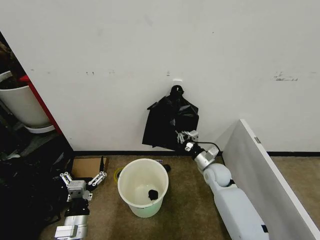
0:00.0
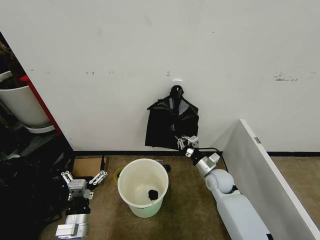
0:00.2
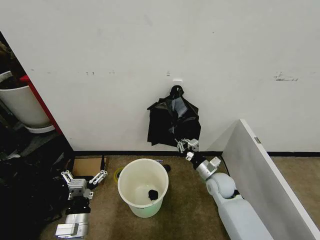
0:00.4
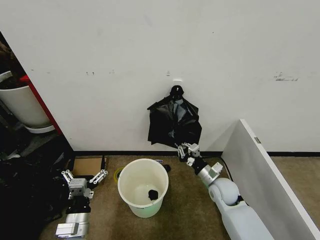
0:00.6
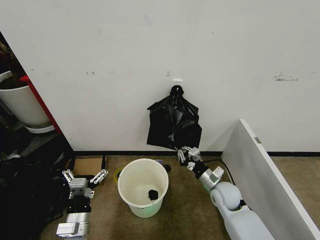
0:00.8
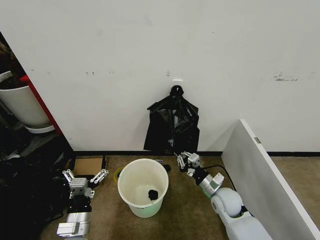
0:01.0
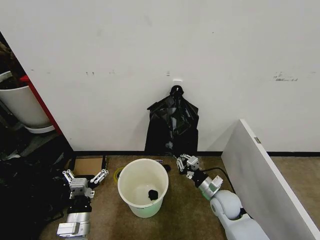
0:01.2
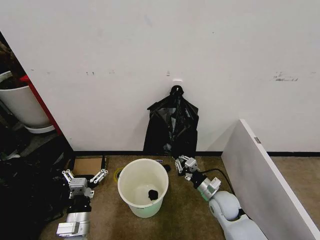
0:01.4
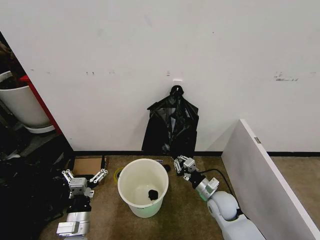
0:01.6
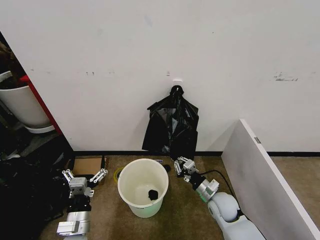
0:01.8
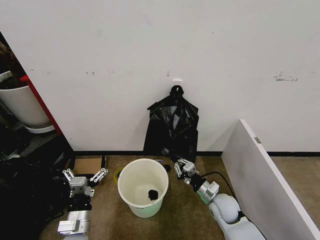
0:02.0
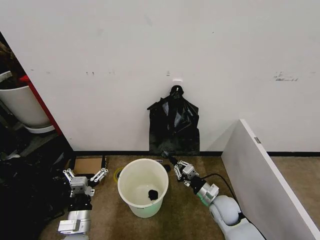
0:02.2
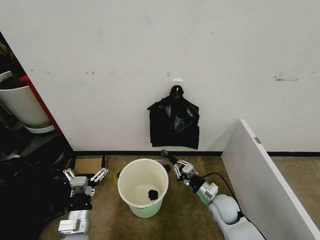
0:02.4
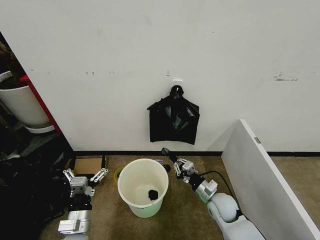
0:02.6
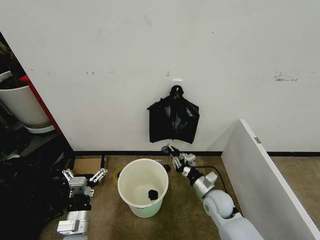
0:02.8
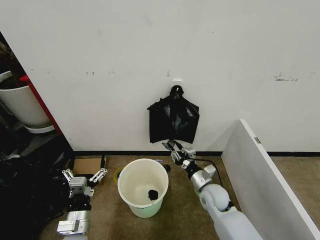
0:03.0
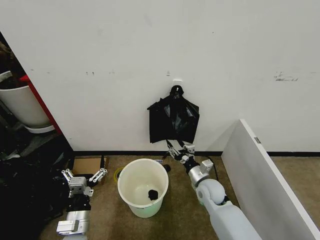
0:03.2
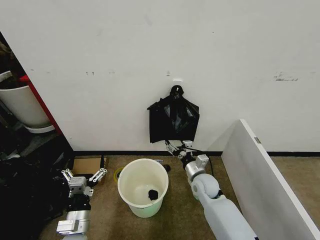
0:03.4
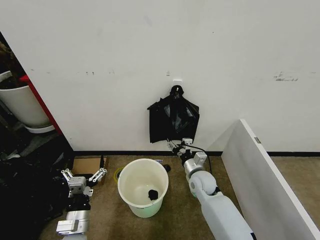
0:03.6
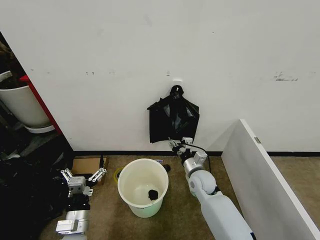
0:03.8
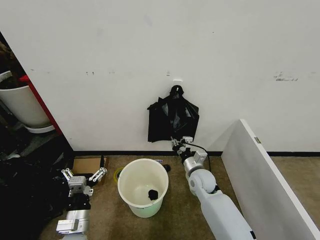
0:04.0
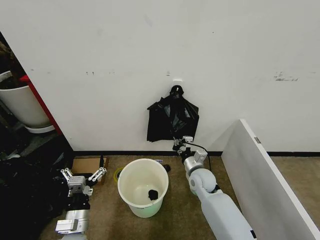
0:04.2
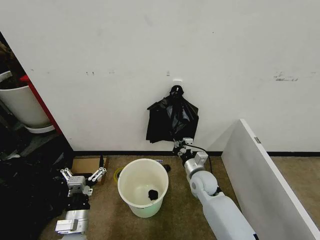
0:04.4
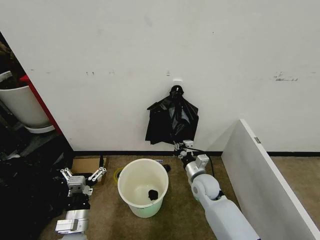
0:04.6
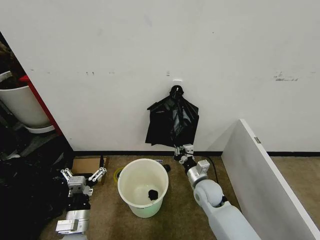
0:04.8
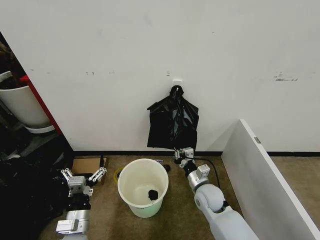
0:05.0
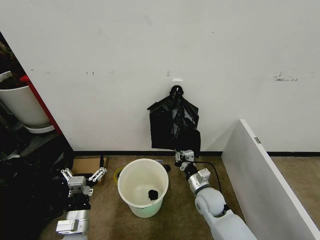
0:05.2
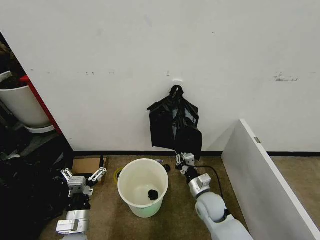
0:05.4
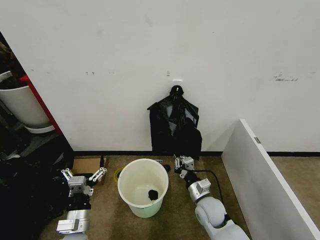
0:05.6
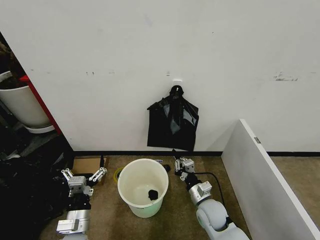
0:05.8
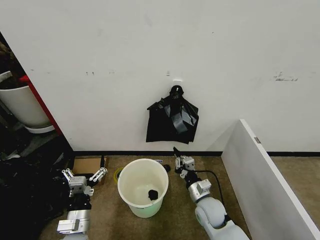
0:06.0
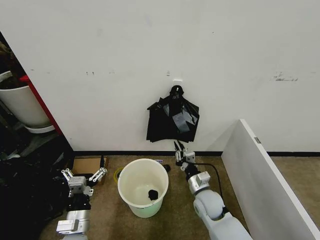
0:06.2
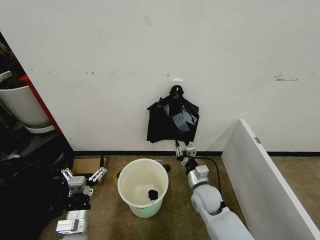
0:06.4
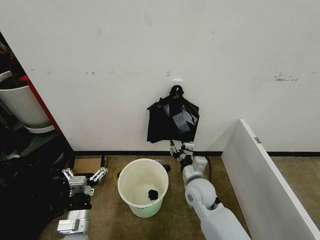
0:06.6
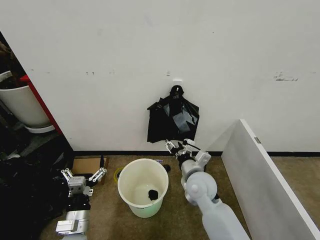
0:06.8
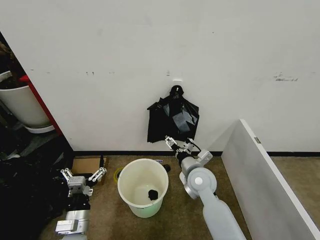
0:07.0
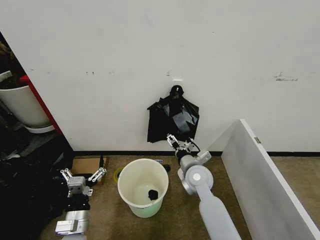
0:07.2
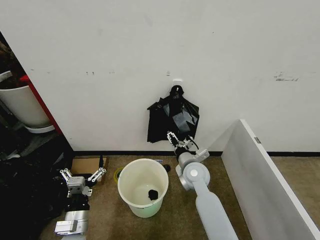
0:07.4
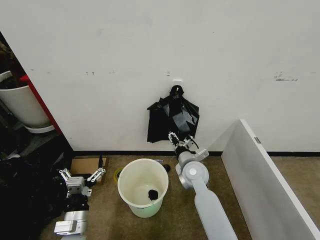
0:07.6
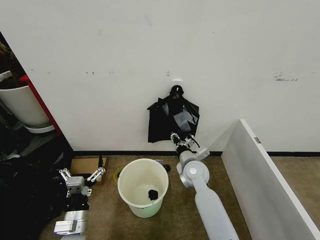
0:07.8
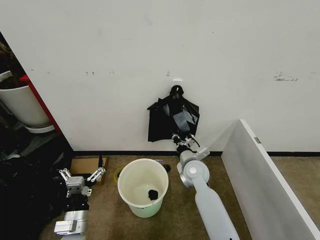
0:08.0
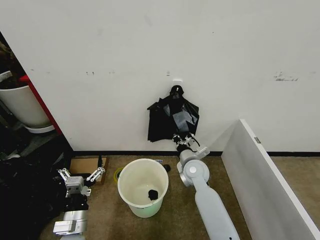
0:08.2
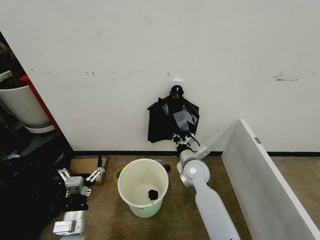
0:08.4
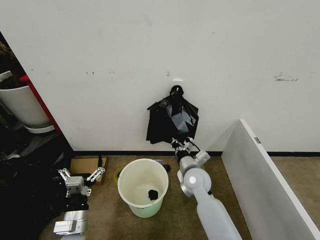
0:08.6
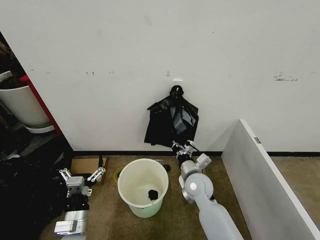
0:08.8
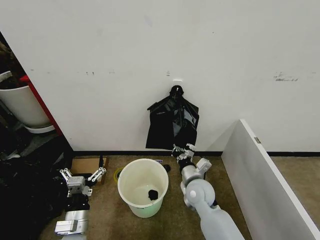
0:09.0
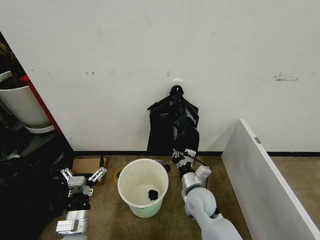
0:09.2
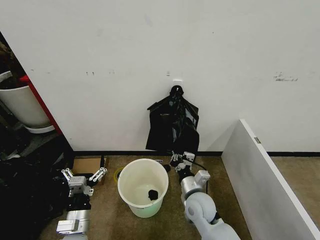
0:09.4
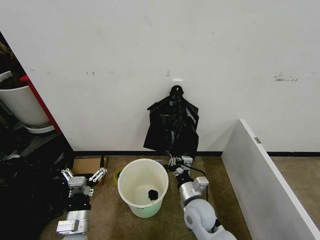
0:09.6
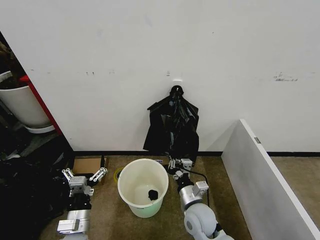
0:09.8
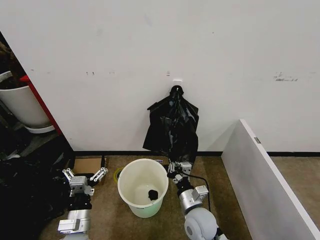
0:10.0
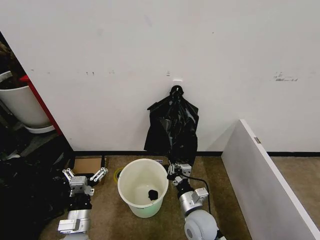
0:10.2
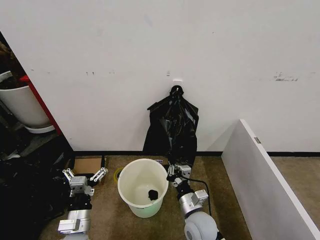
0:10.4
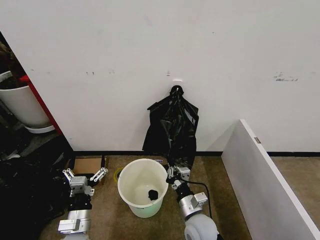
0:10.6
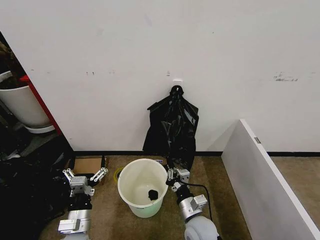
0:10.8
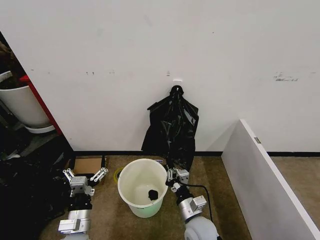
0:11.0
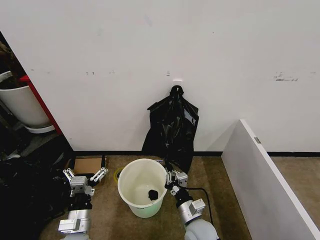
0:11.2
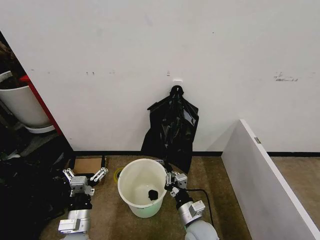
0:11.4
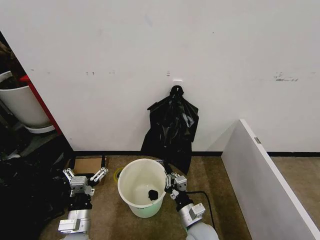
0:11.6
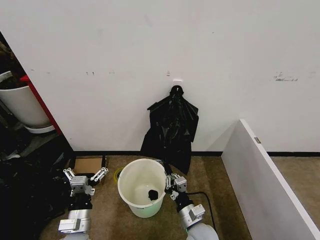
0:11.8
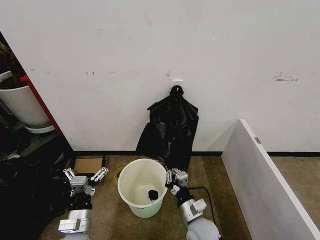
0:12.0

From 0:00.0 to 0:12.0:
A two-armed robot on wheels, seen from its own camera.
Task of the whole recording: Place the garbage bag over the trash bin.
From 0:00.0 to 0:01.6: The right gripper goes about 10 cm backward.
From 0:01.6 to 0:03.0: The right gripper opens its fingers.
From 0:03.0 to 0:04.4: The right gripper moves some 5 cm, and closes its fingers.
From 0:04.4 to 0:06.0: The right gripper goes roughly 10 cm backward.
From 0:06.0 to 0:07.6: The right gripper is displaced forward and upward by about 15 cm, and opens up.
From 0:07.6 to 0:09.0: The right gripper is displaced backward by some 5 cm, and closes.
From 0:09.0 to 0:10.4: The right gripper is displaced backward by roughly 10 cm.
From 0:10.4 to 0:12.0: There are only small adjustments of the grippers.

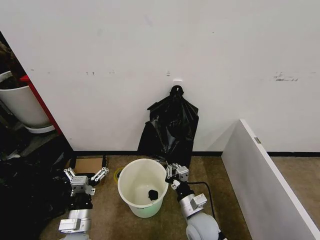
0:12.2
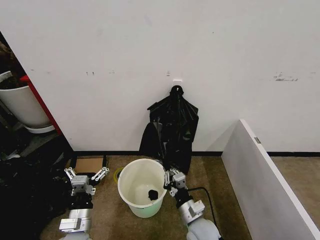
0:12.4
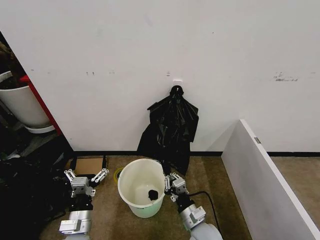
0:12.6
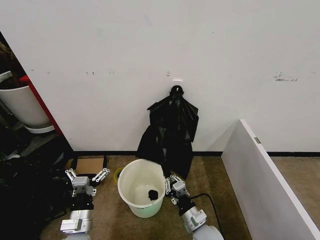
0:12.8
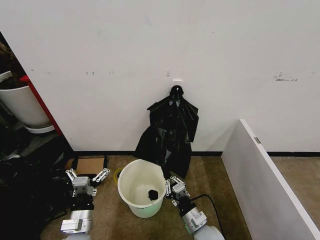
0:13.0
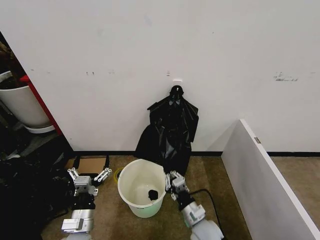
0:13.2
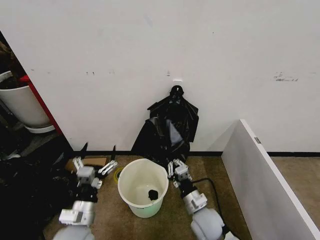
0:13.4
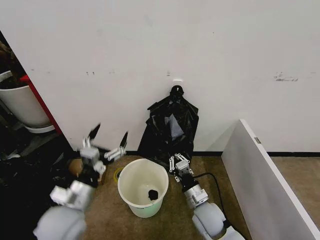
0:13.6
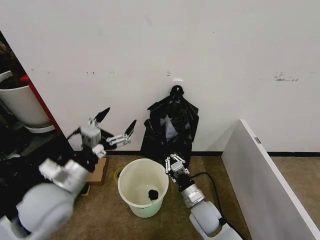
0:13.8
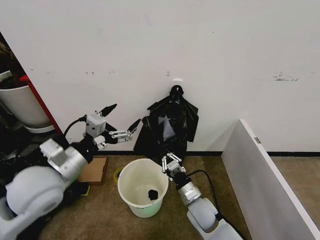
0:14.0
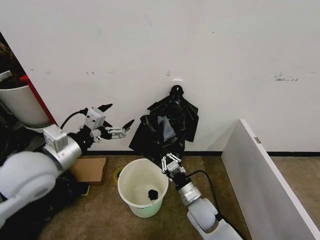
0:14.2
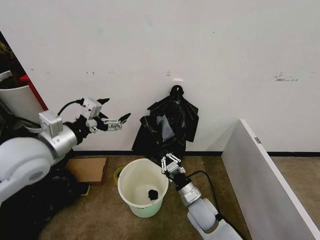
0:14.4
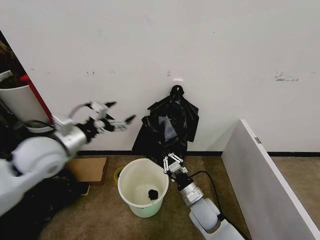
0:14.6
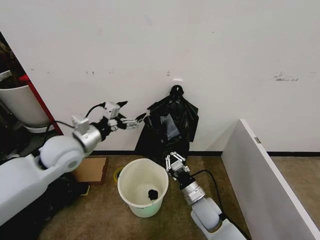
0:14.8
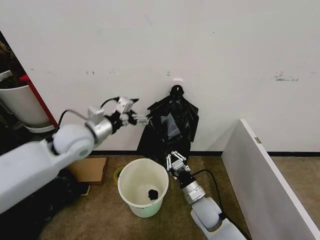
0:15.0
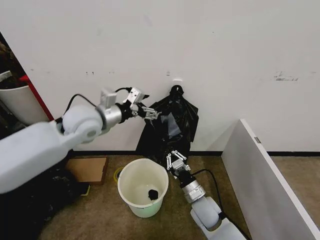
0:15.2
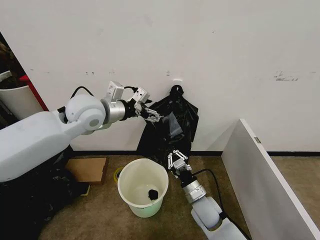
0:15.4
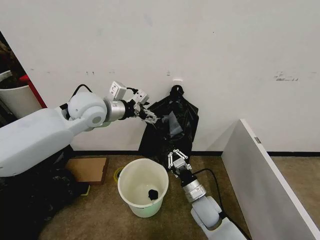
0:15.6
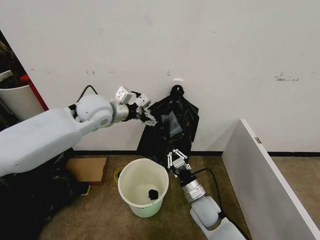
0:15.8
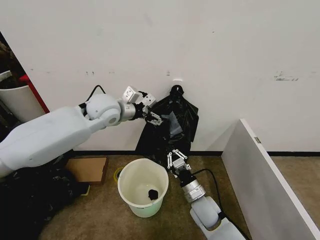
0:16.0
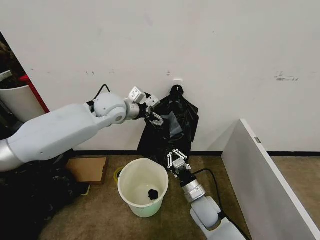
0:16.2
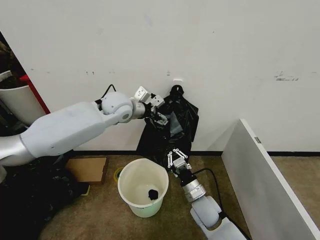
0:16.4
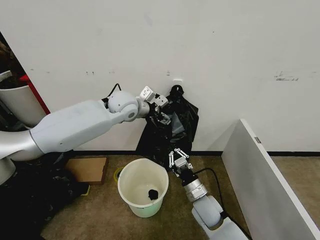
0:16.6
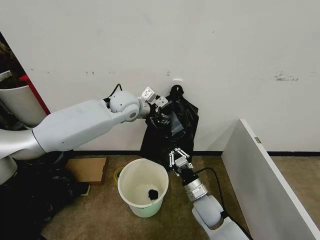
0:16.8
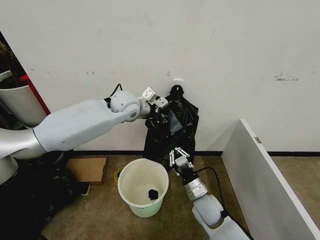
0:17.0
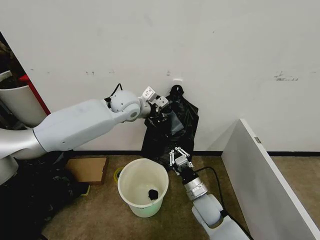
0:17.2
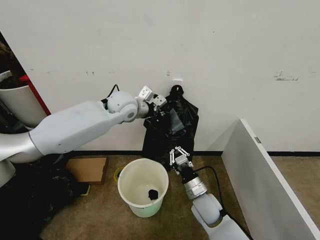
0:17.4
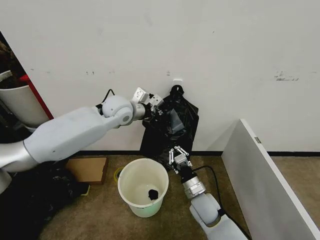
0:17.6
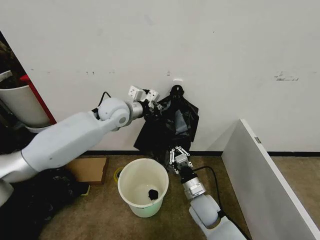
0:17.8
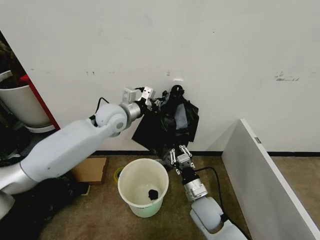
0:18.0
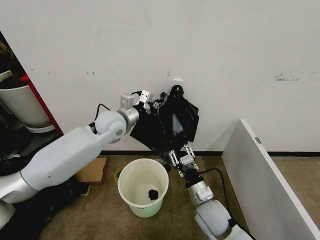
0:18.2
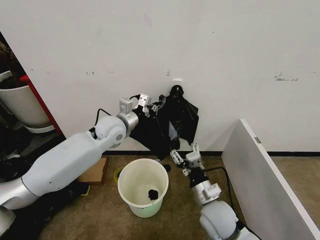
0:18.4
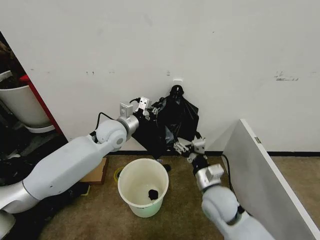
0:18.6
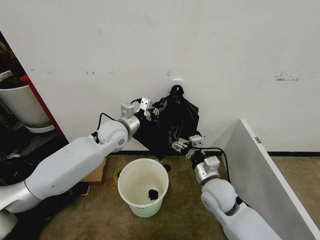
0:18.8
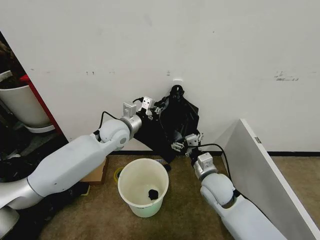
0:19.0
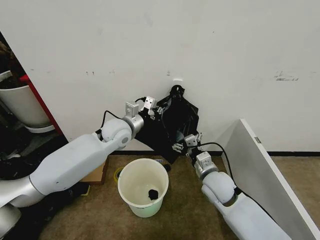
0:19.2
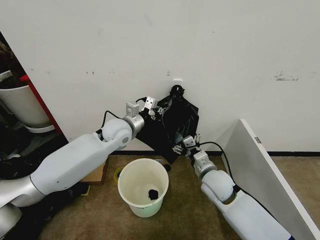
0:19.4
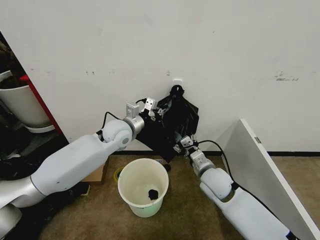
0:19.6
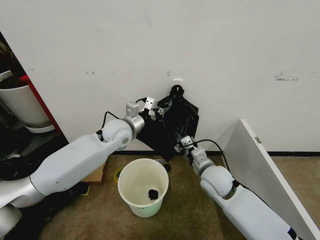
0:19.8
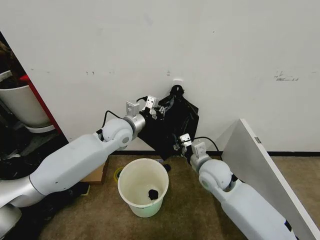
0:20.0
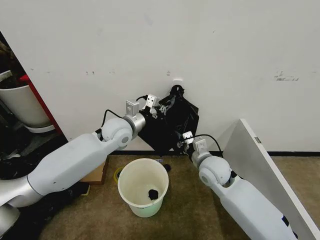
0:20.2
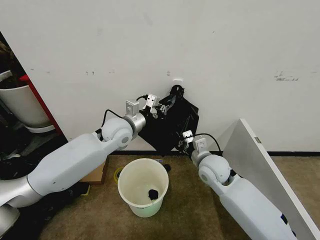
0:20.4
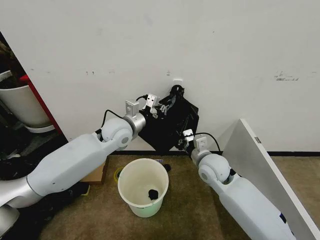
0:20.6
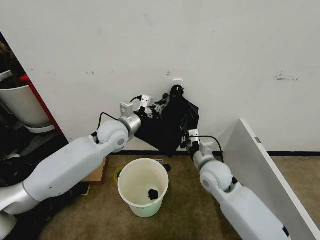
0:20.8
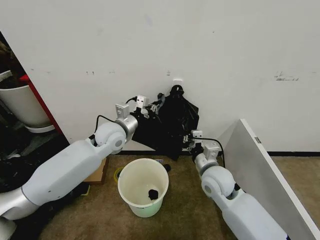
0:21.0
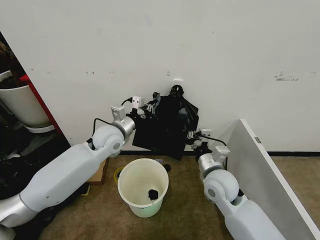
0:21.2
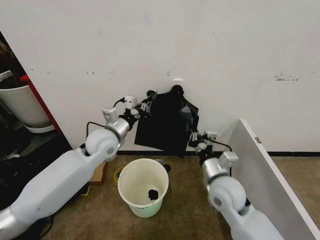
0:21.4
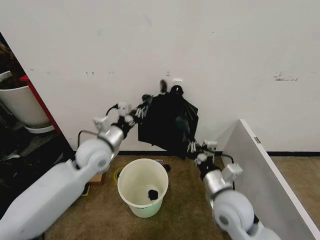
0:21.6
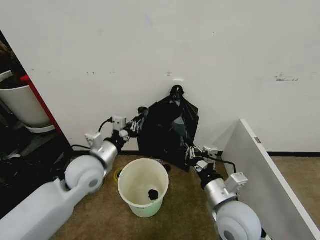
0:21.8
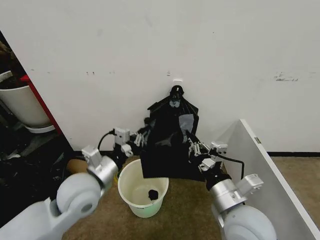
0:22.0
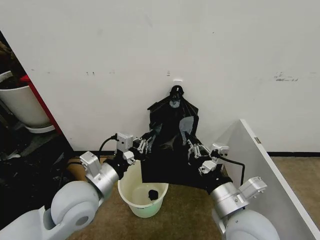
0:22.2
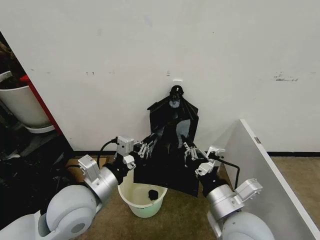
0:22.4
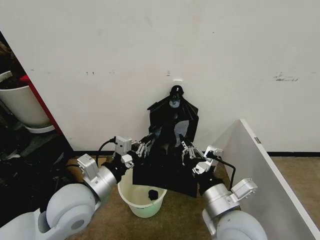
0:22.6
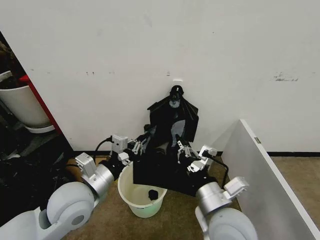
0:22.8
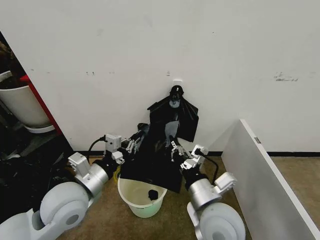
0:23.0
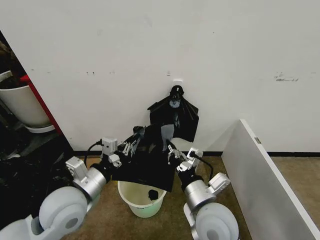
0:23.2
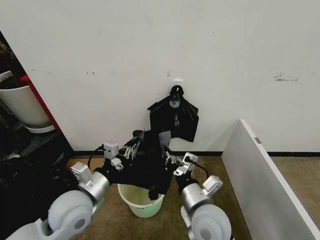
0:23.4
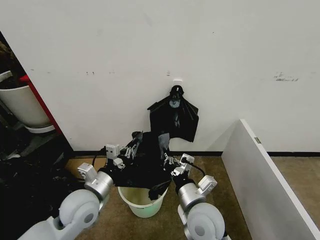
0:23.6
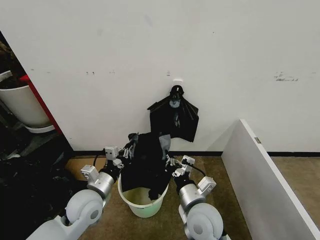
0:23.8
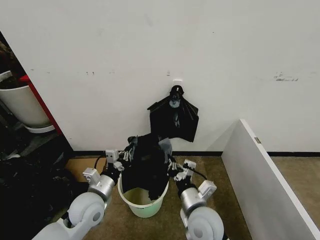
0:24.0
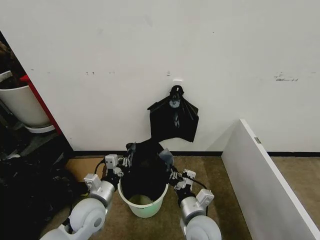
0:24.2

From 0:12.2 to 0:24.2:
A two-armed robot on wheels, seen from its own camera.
Task of the whole recording: Place the garbage bag over the trash bin.
From 0:12.2 to 0:13.8: The left gripper heads upward, covering about 20 cm.
From 0:13.8 to 0:15.2: The left gripper heads forward and upward, covering roughly 20 cm.
From 0:15.2 to 0:16.6: The left gripper is displaced forward and to the right by about 15 cm.
From 0:16.6 to 0:18.2: The right gripper ends up some 5 cm from where it was, and opens, while the left gripper changes place by about 10 cm, and closes its fingers.
From 0:18.2 to 0:19.8: The right gripper heads forward and upward, covering approximately 10 cm, and opens, then closes once more.
From 0:19.8 to 0:21.2: The right gripper closes its fingers.
From 0:21.2 to 0:22.6: The right gripper goes some 15 cm backward and upward. Meanwhile the left gripper shifts roughly 20 cm backward.
From 0:22.6 to 0:24.2: The grippers both shift downward by some 15 cm.
